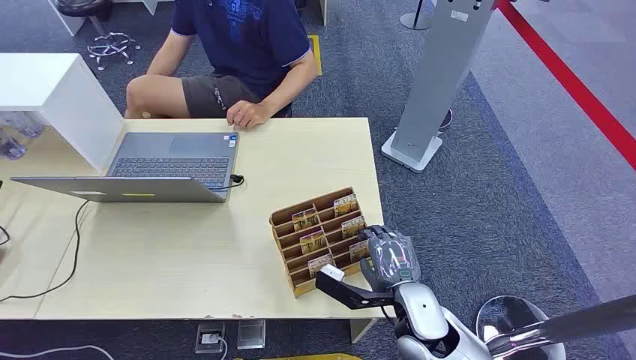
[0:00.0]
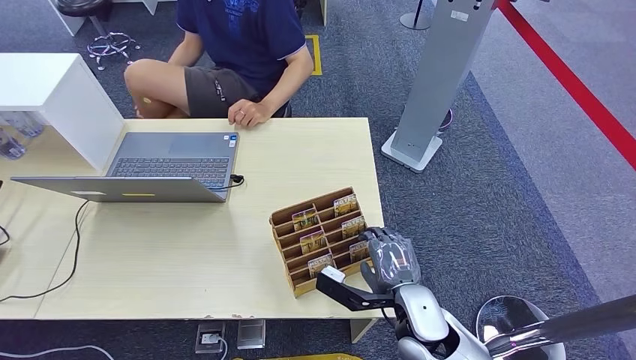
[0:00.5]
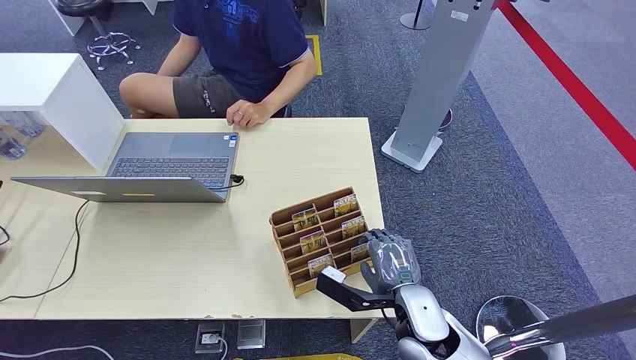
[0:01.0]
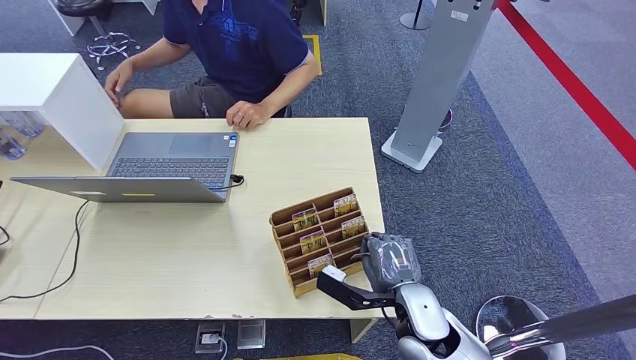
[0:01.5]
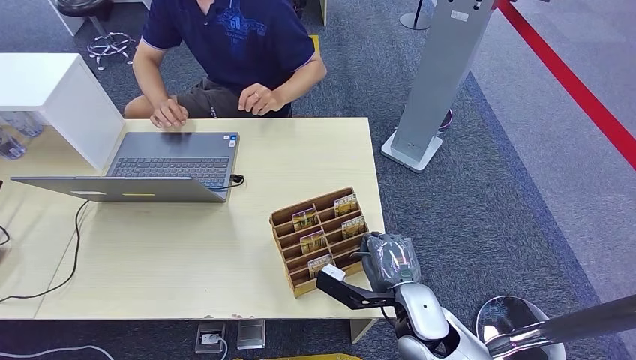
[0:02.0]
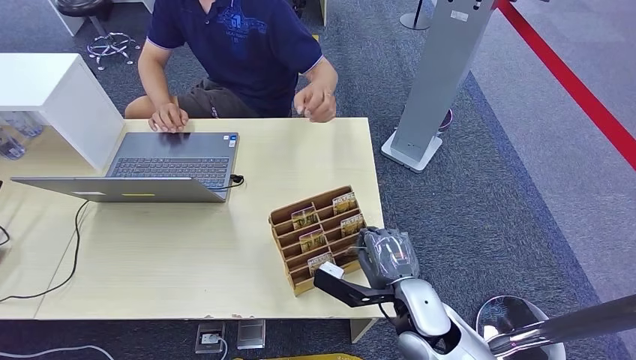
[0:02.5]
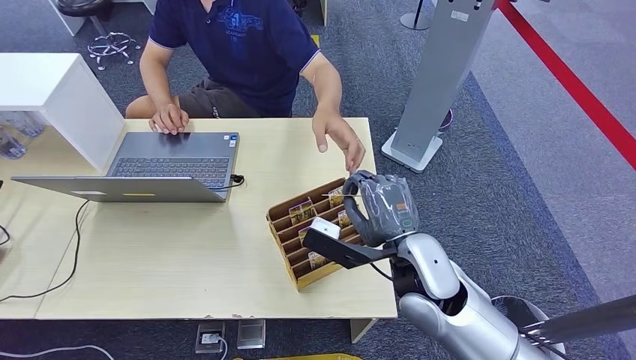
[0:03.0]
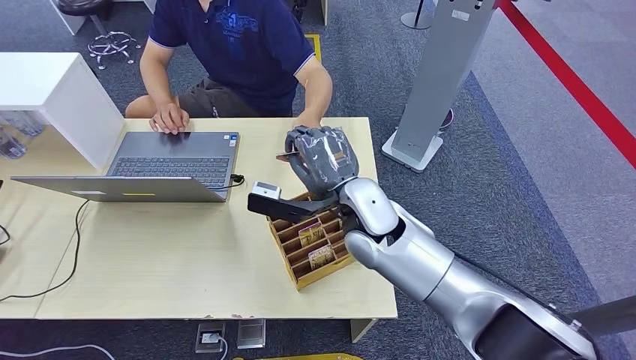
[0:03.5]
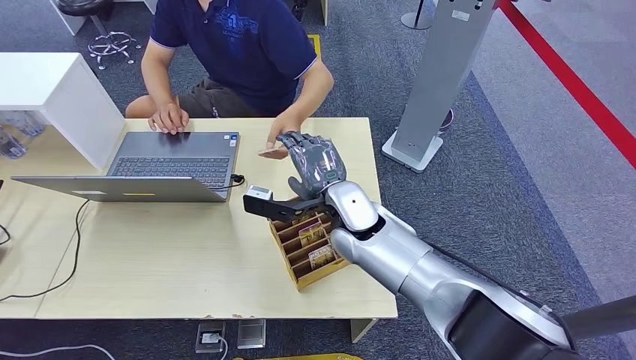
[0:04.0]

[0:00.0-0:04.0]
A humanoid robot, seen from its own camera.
Step, 0:00.0 to 0:02.5: Pick up the key card from the card box.
Step, 0:03.0 to 0:04.0: Hand the key card to the target.
0:02.0 to 0:04.0: The right hand travels forward, to the left and upward by roughly 20 cm.
